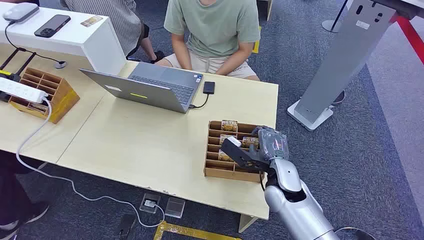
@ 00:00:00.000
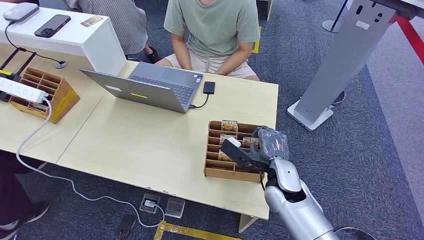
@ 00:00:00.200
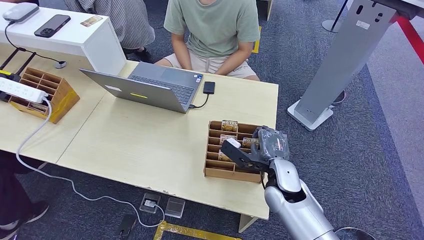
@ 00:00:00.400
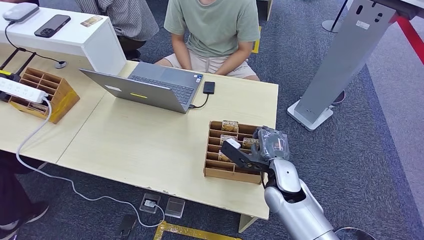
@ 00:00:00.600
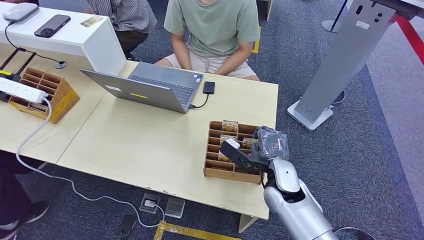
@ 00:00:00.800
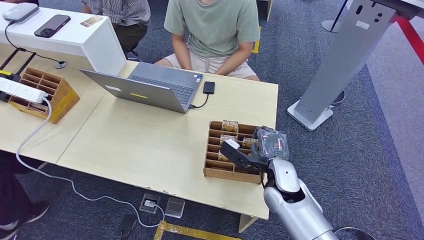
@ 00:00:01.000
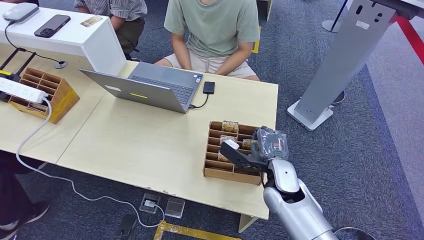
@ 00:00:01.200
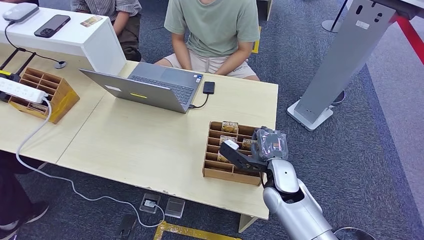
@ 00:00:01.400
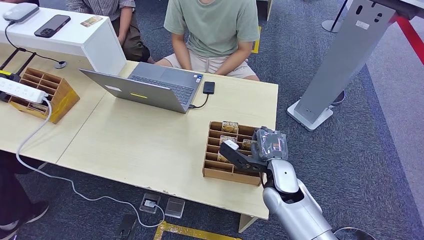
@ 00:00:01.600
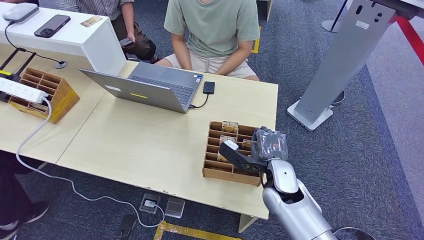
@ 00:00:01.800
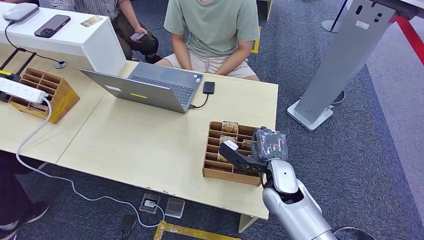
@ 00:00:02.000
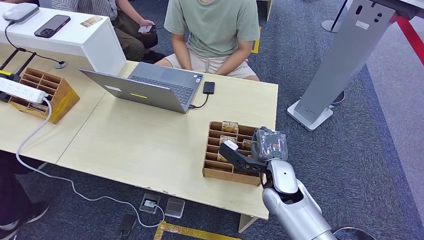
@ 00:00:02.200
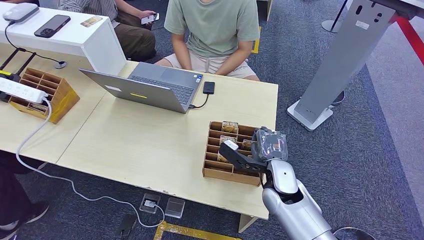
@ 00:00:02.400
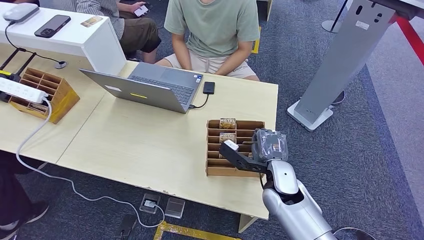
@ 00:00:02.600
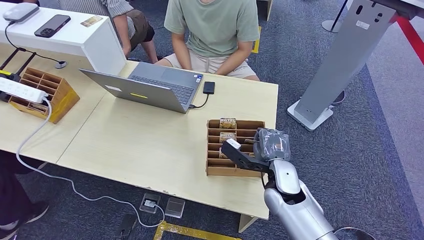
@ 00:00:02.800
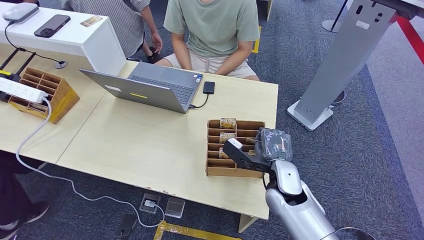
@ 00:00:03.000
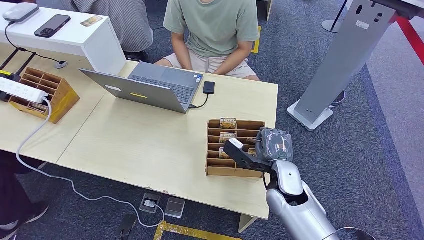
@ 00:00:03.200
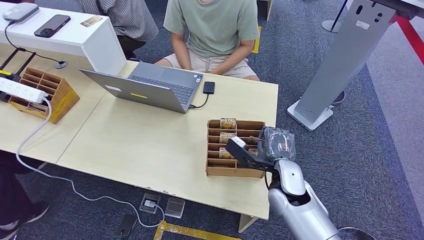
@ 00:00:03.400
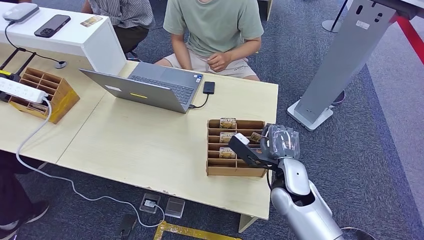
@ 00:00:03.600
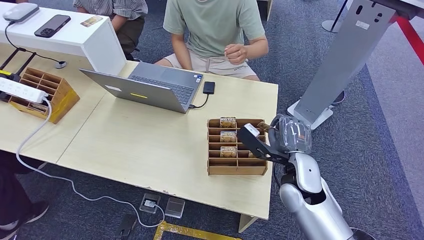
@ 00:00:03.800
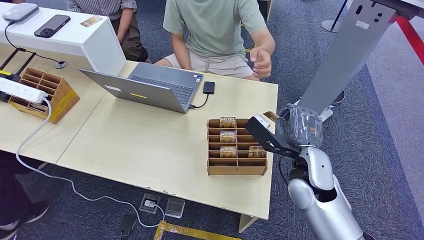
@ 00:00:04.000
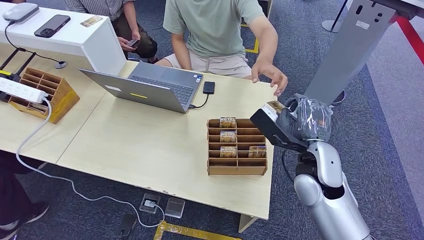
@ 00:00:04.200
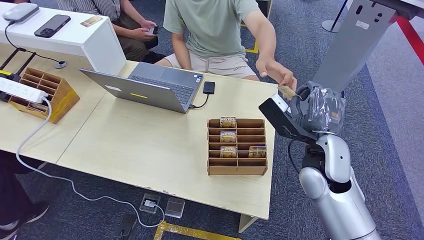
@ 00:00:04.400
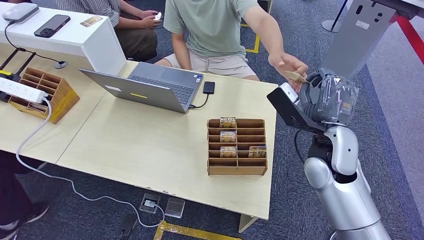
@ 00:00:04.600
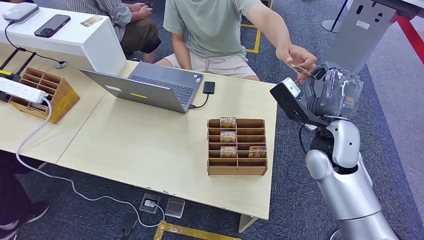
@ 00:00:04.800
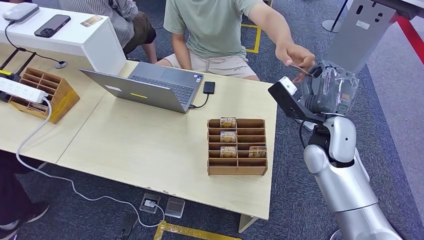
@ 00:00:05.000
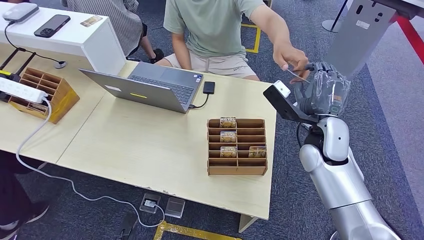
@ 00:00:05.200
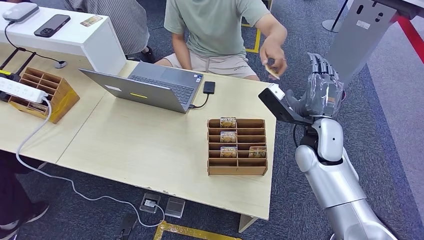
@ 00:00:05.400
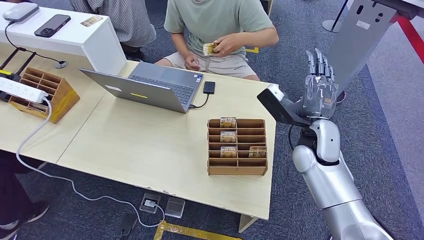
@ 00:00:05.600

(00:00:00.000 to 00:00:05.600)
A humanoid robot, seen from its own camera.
Step, 00:00:00.000 - 00:00:04.000: Pick up the room card from the card holder.
Step, 00:00:04.600 - 00:00:05.600: Hand the room card to the target.
00:00:01.400 - 00:00:02.800: Neither hand changes place.
00:00:02.800 - 00:00:04.200: The right hand is displaced upward by roughly 10 cm.
00:00:04.200 - 00:00:05.600: The right hand is displaced forward by roughly 5 cm.

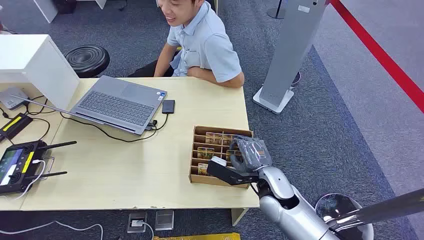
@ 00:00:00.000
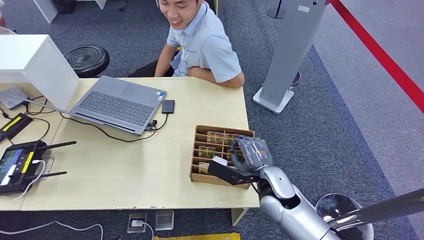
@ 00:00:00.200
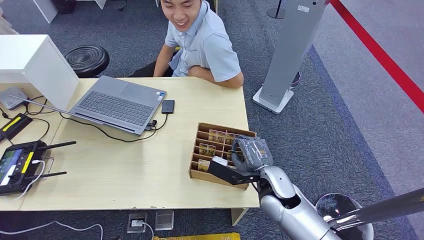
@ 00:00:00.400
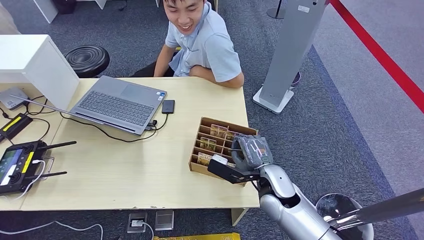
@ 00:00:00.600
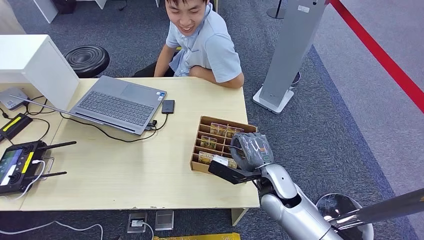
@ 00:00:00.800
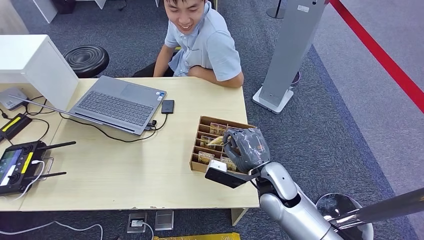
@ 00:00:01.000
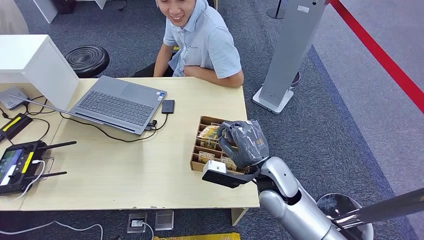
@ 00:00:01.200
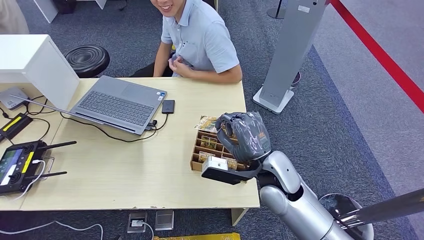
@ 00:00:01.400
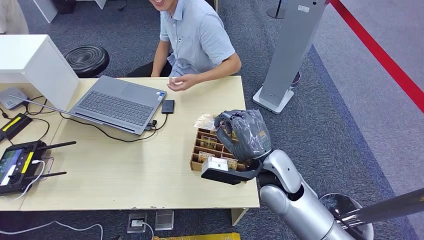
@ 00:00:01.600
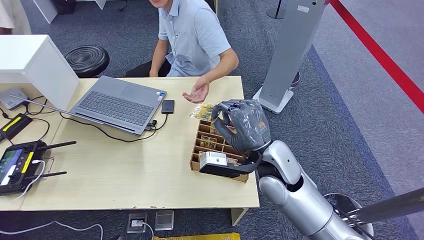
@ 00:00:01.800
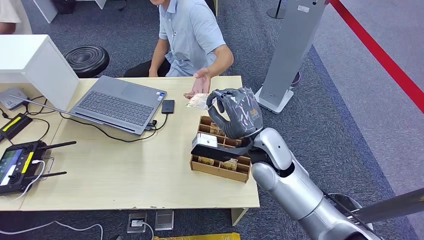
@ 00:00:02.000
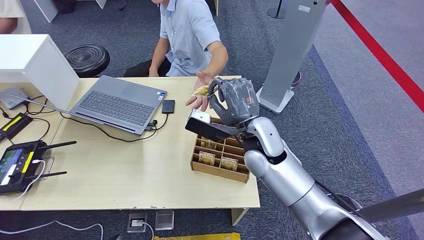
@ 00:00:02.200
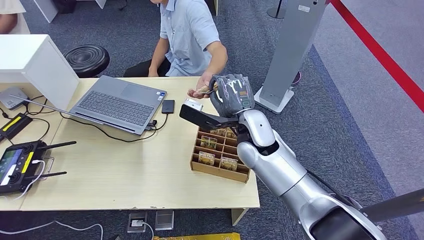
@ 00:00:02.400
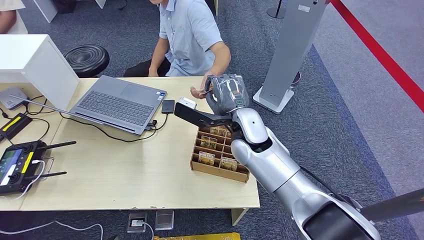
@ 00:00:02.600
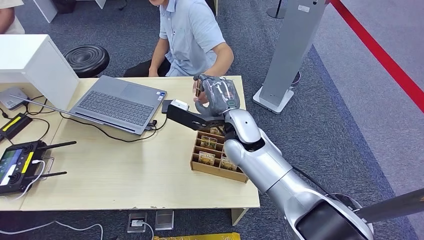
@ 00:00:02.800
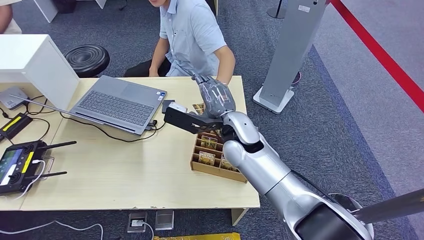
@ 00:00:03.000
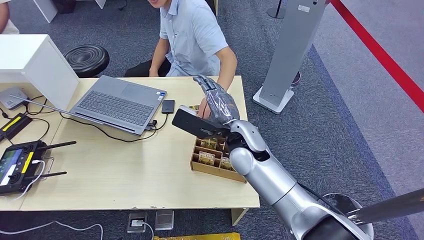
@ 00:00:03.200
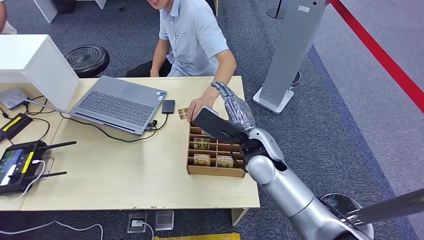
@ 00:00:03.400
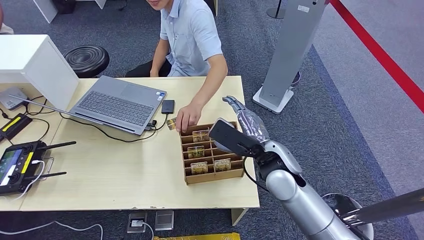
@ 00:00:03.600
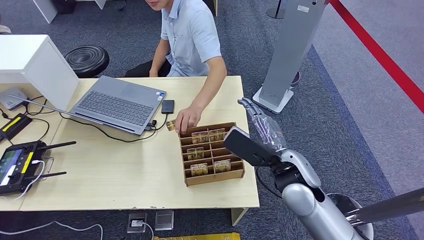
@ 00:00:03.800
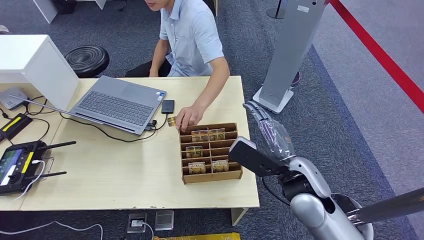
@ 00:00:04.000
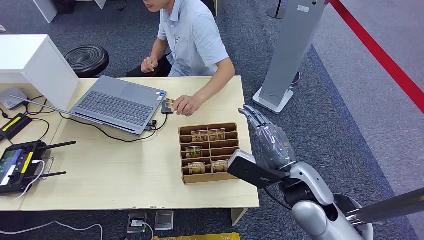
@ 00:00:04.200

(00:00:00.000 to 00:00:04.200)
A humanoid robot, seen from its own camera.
Step, 00:00:00.000 - 00:00:01.200: Pick up the room card from the card holder.
Step, 00:00:01.400 - 00:00:04.200: Hand the room card to the target.
00:00:01.400 - 00:00:02.800: The right hand shifts roughly 10 cm forward and to the left.
00:00:02.800 - 00:00:04.200: The right hand moves to the right and backward, roughly 20 cm.
